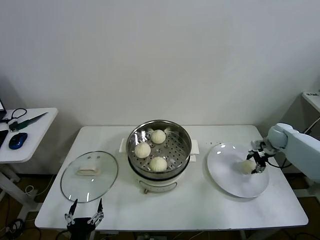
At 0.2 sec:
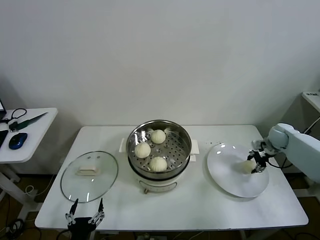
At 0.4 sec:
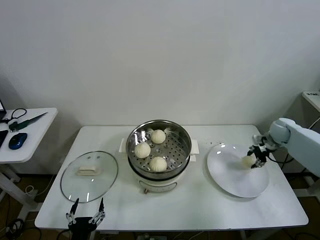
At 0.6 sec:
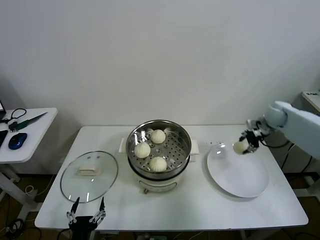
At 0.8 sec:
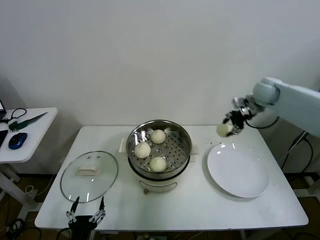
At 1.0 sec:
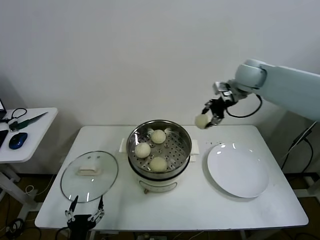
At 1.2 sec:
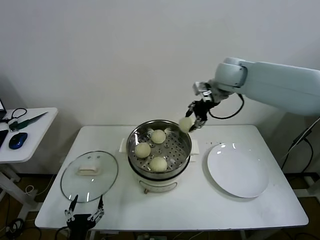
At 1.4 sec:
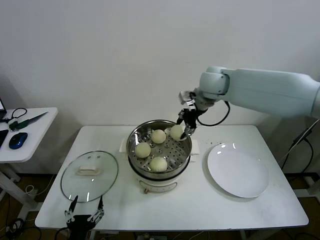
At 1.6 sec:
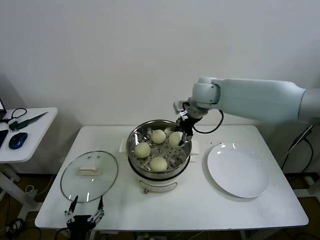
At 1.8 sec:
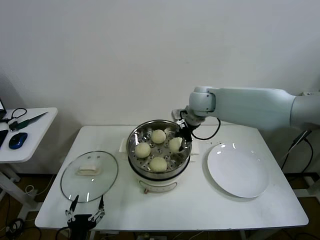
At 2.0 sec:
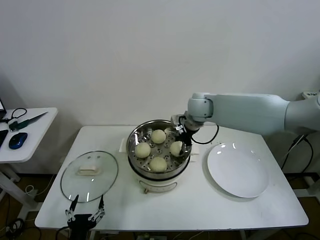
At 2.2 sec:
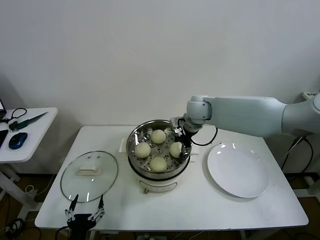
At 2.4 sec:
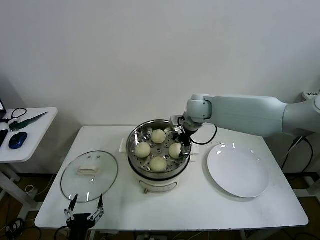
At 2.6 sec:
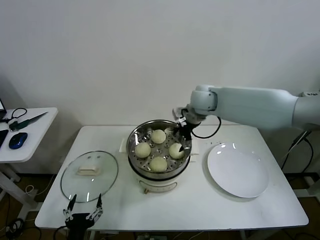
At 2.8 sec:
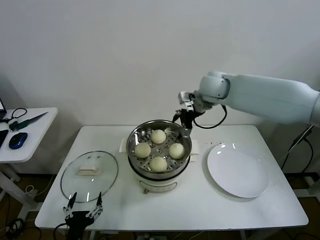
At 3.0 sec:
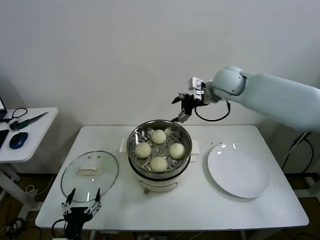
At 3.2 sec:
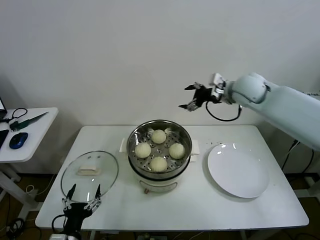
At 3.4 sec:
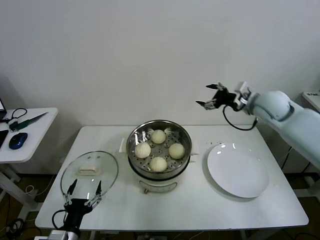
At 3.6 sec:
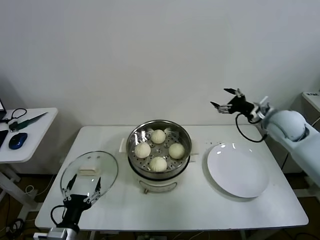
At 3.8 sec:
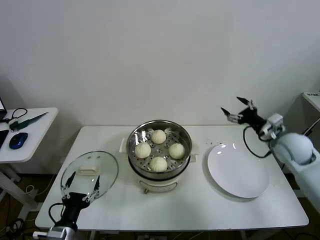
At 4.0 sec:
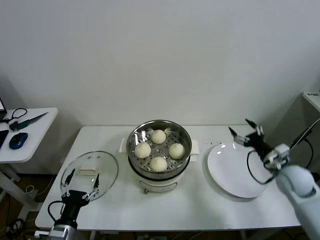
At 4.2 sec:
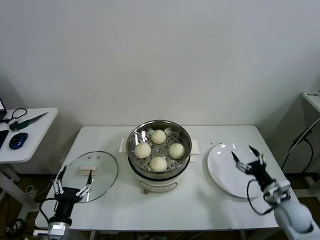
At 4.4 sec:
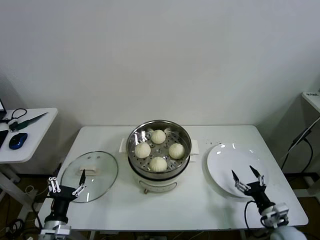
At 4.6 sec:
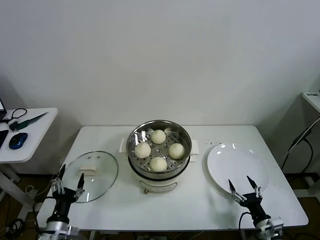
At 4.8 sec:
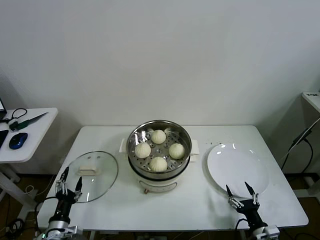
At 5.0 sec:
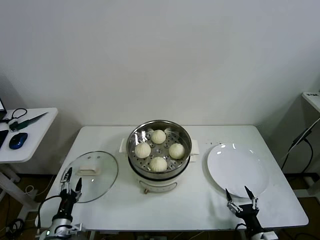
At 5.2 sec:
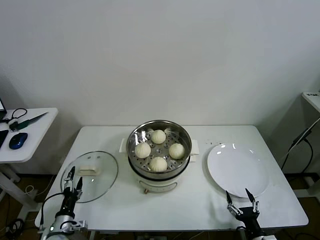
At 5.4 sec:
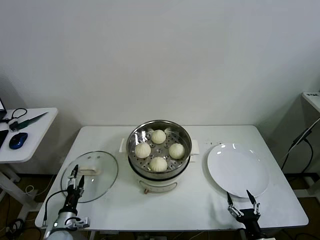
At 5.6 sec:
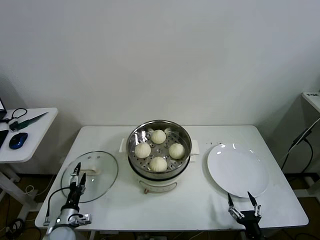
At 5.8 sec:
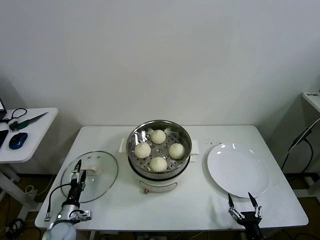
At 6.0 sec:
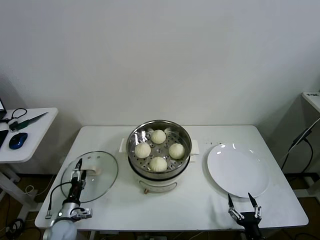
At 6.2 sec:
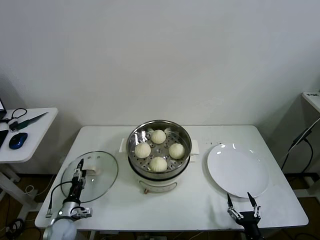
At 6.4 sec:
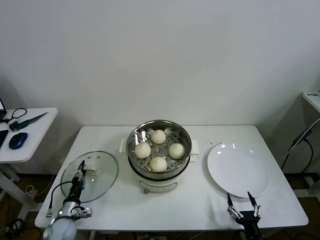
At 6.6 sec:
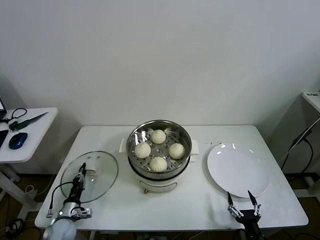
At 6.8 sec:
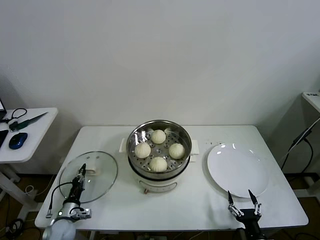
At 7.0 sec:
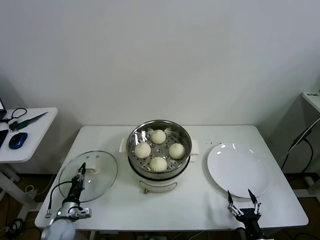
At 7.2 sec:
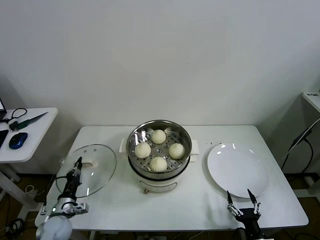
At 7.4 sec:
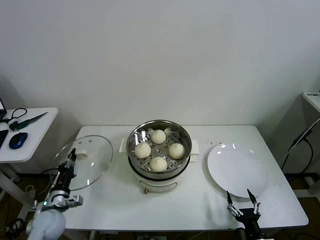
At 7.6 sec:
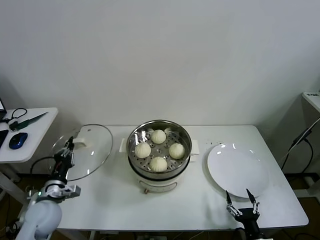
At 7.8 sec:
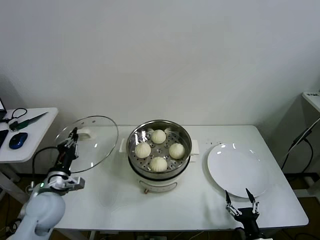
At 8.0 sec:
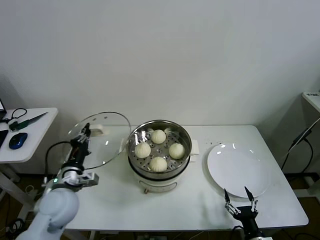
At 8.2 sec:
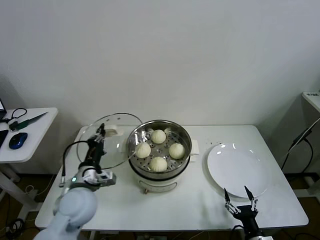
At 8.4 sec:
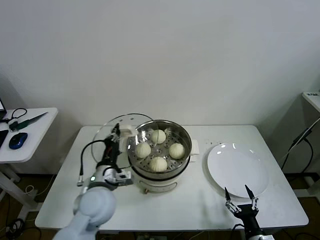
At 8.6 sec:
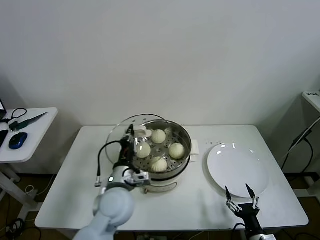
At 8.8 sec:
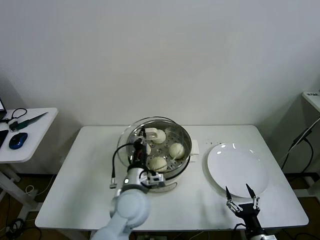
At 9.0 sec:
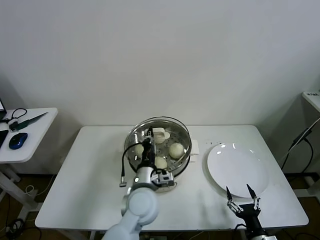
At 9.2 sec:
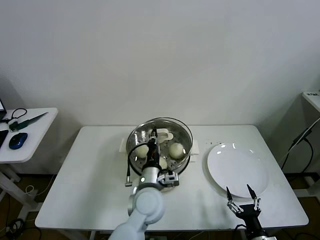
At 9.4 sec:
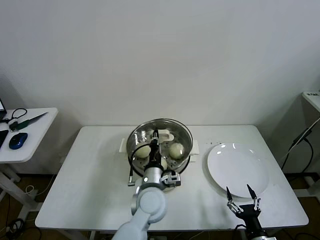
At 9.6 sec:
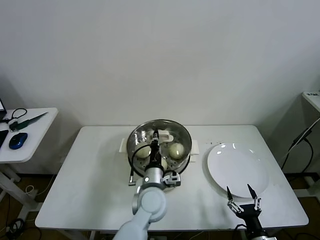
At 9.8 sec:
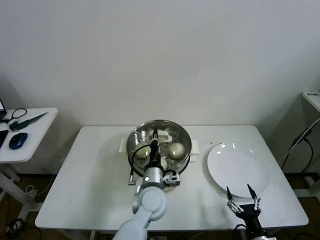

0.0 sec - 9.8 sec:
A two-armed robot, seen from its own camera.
Task of the whole recording: take steamed baozi put them in steamer then cover it.
Step, 0.4 sec - 2.4 sec: Place the baozi on the steamer with right gripper.
Step, 2.6 sec - 6.6 sec: Grasp the pot lid with left gripper.
0.0 sec - 1.4 sec: The right gripper travels to the left and upward by about 40 cm, and closes its fingers.
1.4 sec - 2.8 sec: The right gripper travels downward and back again, roughly 10 cm each way, and opens.
2.8 sec - 4.2 sec: The left gripper goes roughly 10 cm to the left and forward. Meanwhile the right gripper goes approximately 50 cm downward, backward and to the right.
4.2 sec - 5.6 sec: The left gripper shifts about 15 cm downward, forward and to the left. The right gripper moves backward, downward and to the left, about 20 cm.
5.6 sec - 7.0 sec: The left gripper closes up.
7.0 sec - 8.4 sec: The left gripper is displaced upward and to the right by about 30 cm.
8.4 sec - 9.8 sec: The left gripper heads to the right, covering approximately 15 cm.

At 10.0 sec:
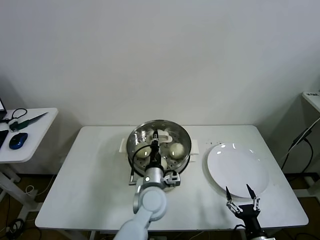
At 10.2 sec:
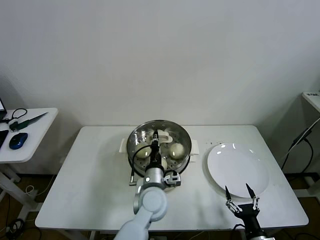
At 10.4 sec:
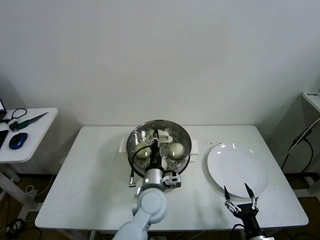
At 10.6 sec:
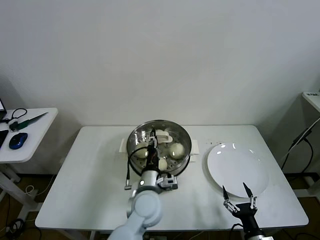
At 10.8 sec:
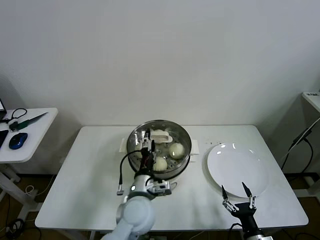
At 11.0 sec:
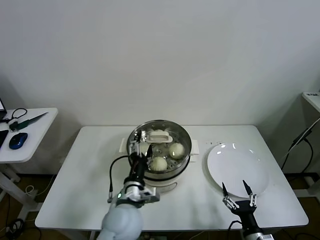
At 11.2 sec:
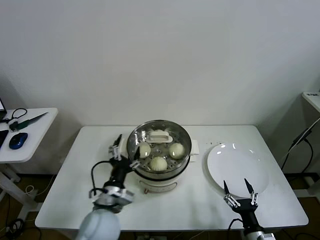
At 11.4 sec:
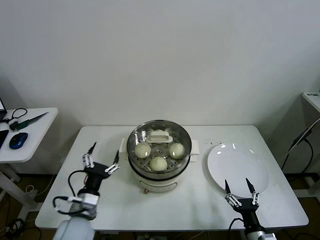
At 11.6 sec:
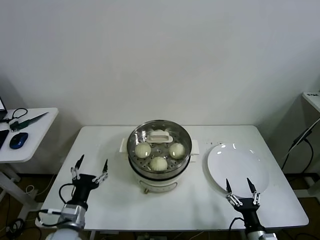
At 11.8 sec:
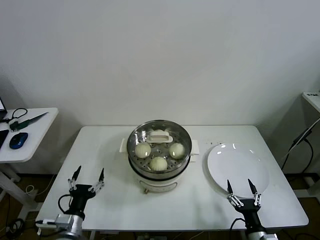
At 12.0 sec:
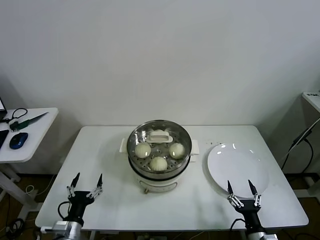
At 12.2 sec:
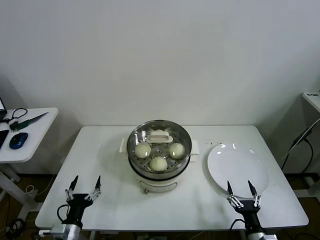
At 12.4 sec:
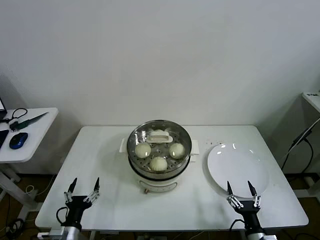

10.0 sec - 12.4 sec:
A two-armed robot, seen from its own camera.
Task of the whole recording: take steamed baozi put them in steamer then cover it.
10.0 sec - 11.2 sec: The left gripper goes roughly 15 cm to the left and backward, and opens its fingers.
11.2 sec - 12.4 sec: The left gripper heads to the left, downward and backward, covering some 20 cm.
